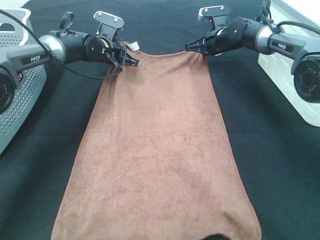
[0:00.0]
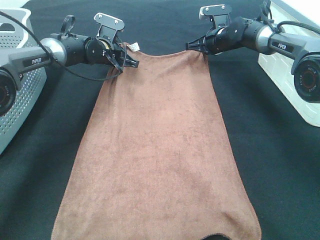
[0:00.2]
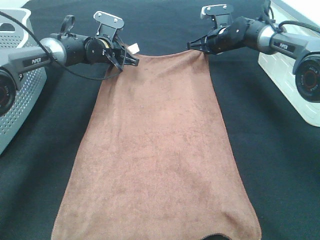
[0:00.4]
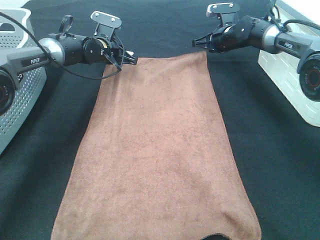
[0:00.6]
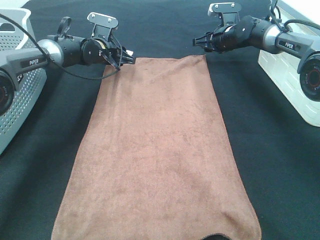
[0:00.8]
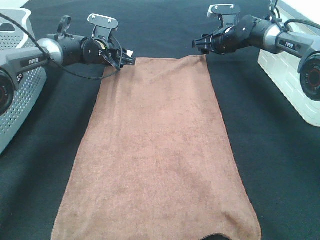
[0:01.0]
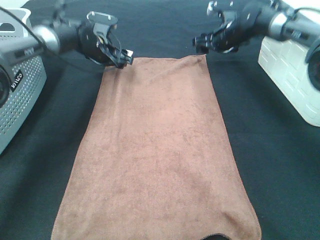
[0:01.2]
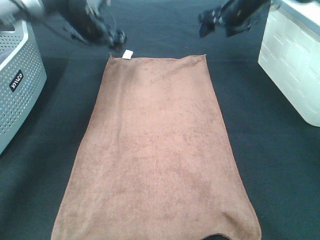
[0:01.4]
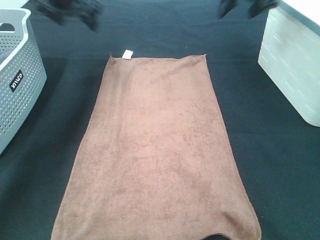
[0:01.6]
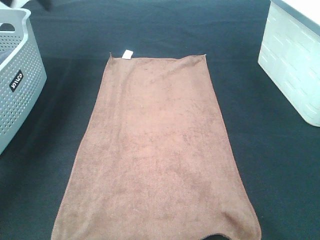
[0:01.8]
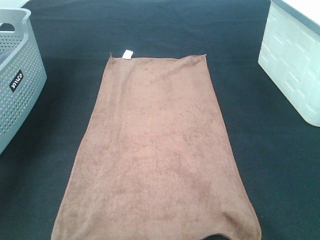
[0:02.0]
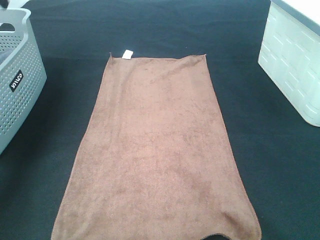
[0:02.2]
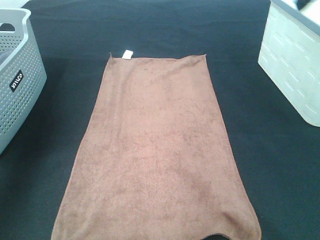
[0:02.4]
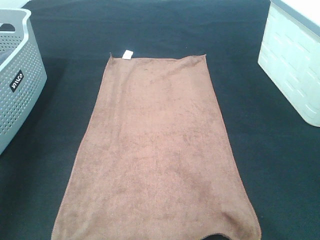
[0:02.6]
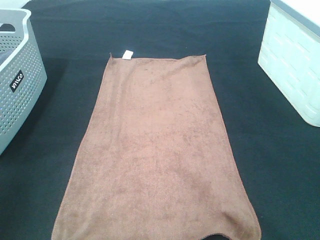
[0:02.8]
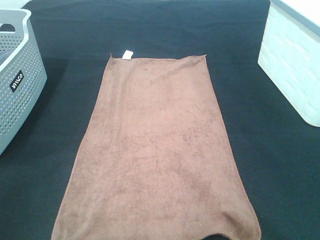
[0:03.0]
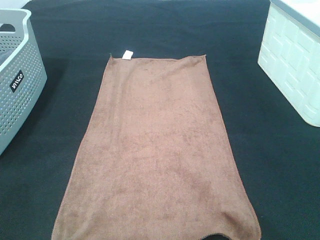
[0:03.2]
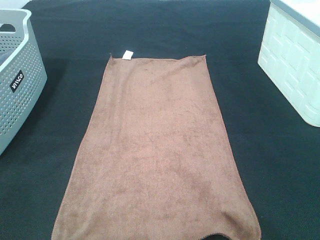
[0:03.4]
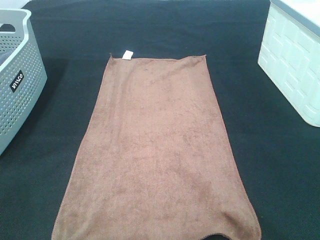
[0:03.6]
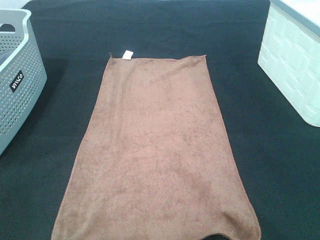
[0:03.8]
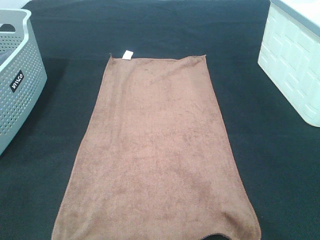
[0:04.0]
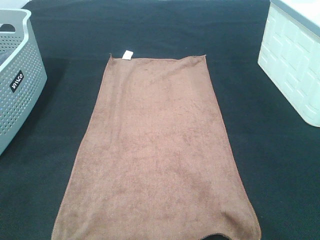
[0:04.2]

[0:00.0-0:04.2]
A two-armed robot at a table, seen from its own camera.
Task of the whole recording: Remove the towel and place it.
0:00.0 to 0:01.4: The grippers both shift upward by about 10 cm. The left gripper opens its fingers; the right gripper opens up.
0:01.4 to 0:02.8: Both grippers move backward, some 40 cm.

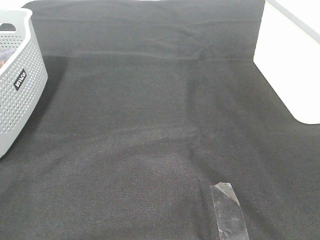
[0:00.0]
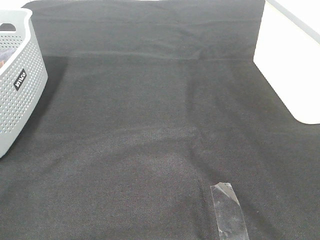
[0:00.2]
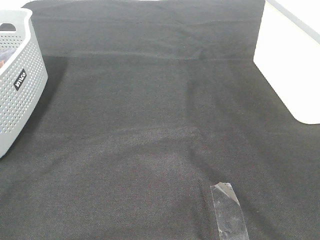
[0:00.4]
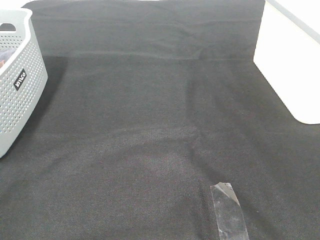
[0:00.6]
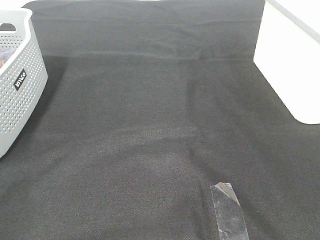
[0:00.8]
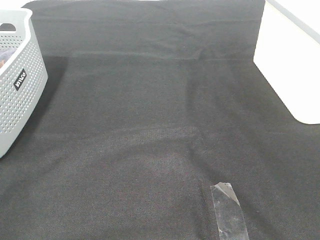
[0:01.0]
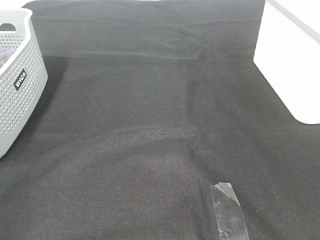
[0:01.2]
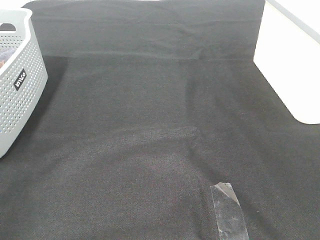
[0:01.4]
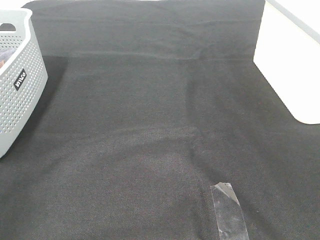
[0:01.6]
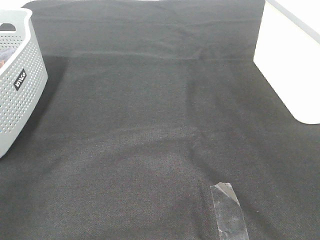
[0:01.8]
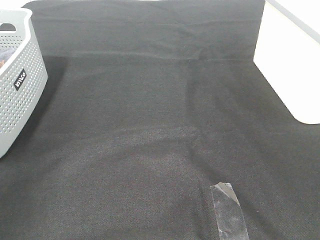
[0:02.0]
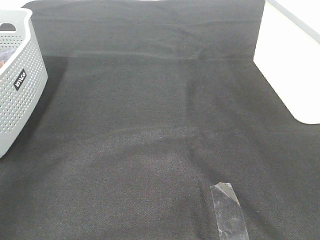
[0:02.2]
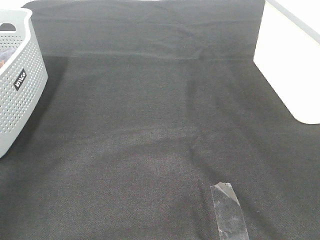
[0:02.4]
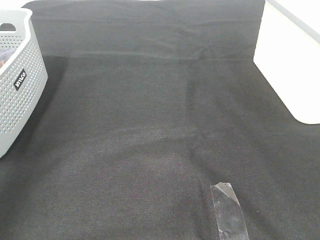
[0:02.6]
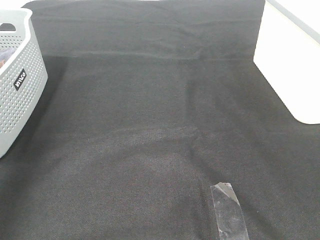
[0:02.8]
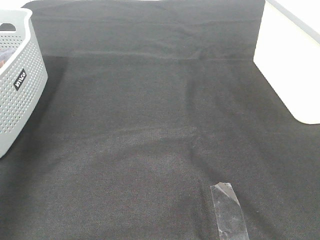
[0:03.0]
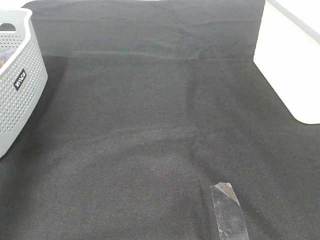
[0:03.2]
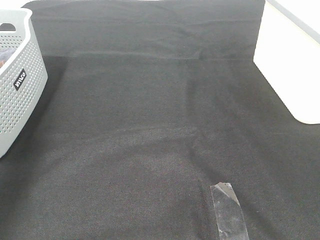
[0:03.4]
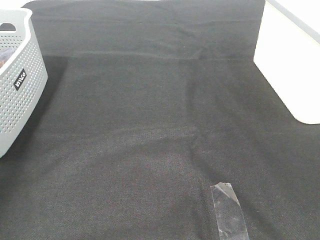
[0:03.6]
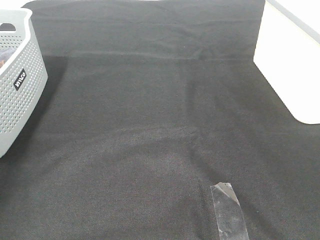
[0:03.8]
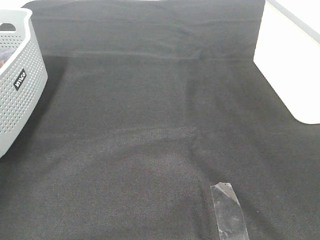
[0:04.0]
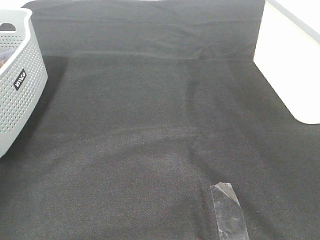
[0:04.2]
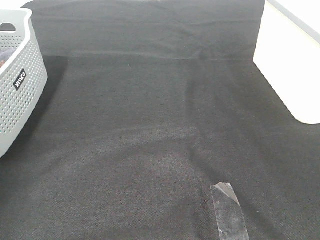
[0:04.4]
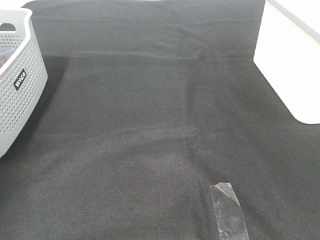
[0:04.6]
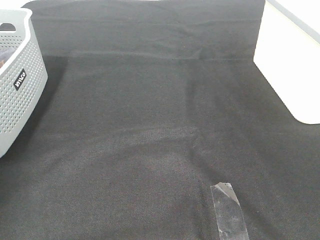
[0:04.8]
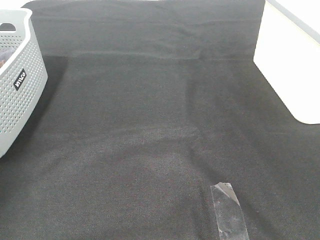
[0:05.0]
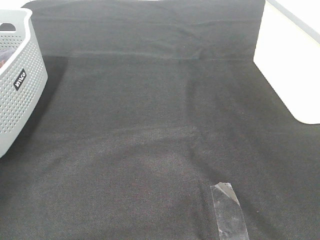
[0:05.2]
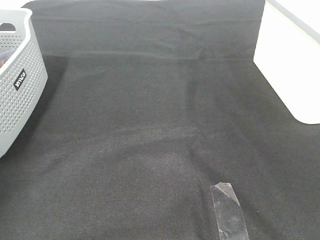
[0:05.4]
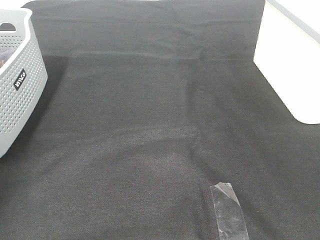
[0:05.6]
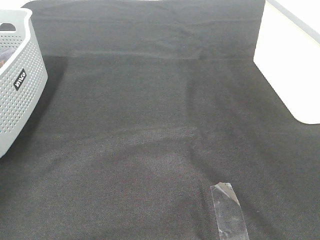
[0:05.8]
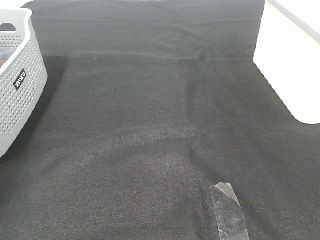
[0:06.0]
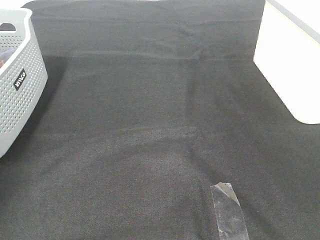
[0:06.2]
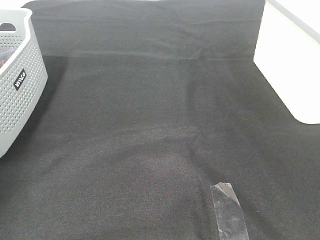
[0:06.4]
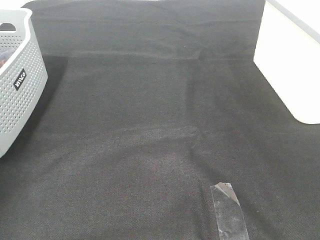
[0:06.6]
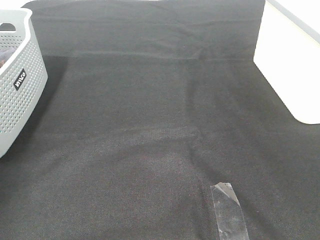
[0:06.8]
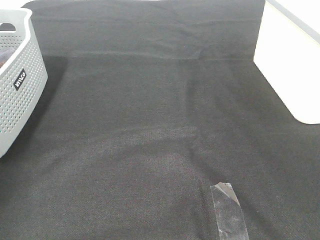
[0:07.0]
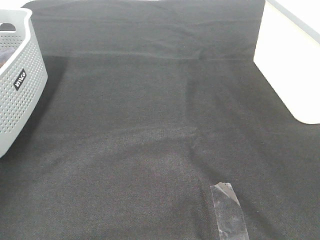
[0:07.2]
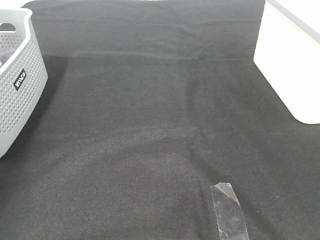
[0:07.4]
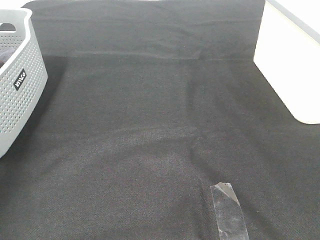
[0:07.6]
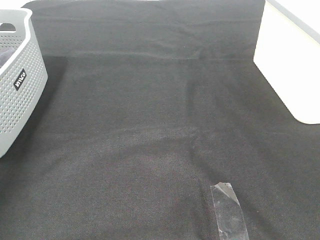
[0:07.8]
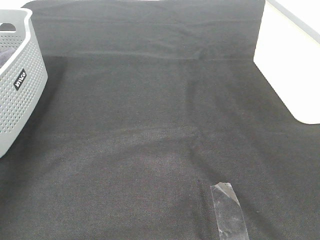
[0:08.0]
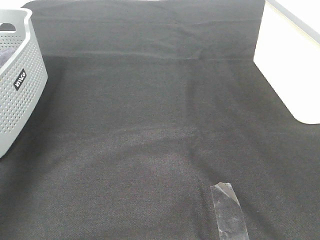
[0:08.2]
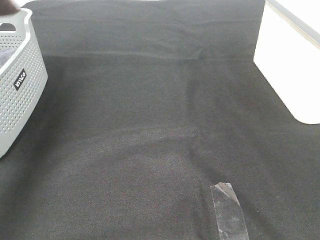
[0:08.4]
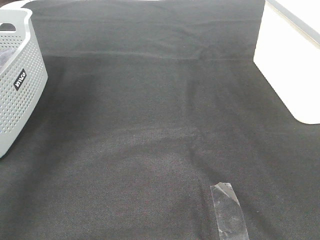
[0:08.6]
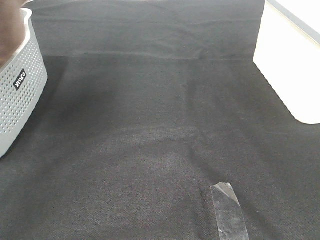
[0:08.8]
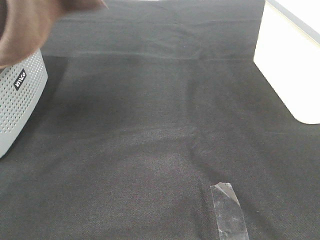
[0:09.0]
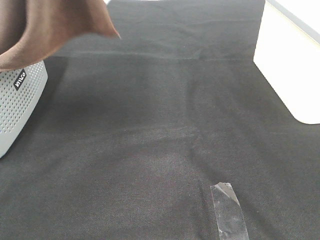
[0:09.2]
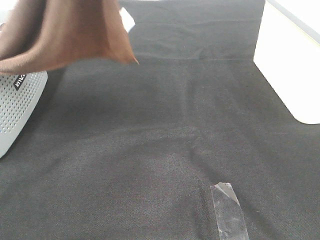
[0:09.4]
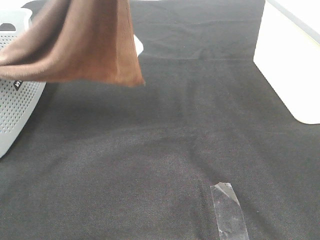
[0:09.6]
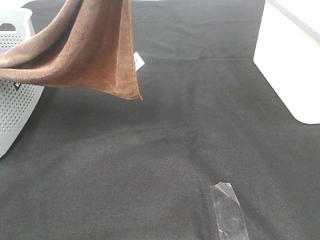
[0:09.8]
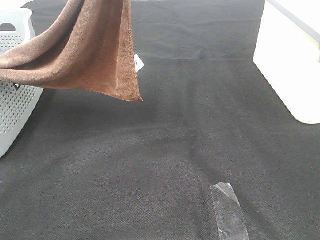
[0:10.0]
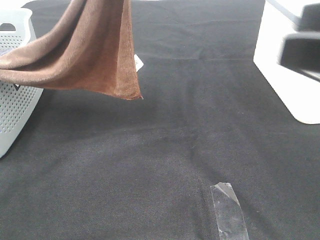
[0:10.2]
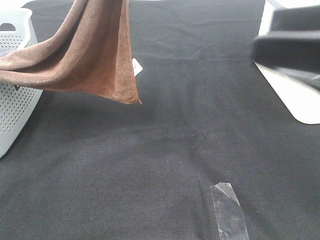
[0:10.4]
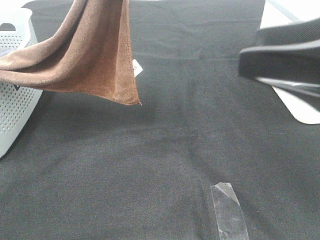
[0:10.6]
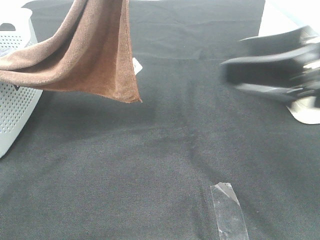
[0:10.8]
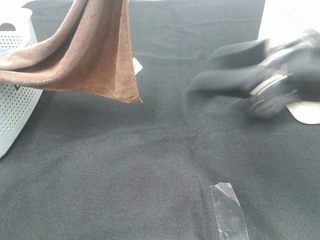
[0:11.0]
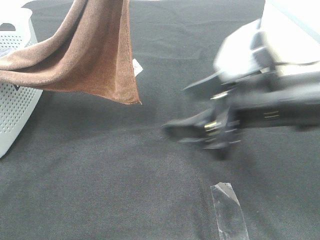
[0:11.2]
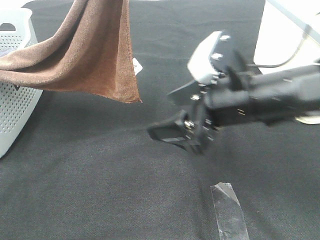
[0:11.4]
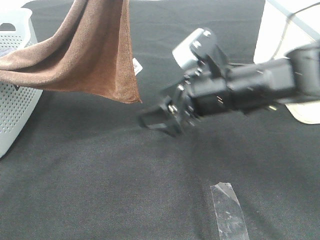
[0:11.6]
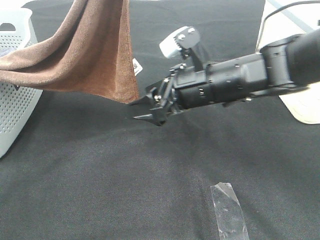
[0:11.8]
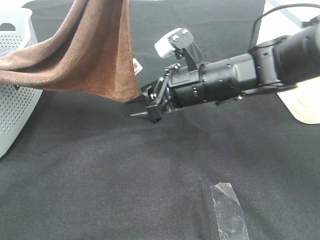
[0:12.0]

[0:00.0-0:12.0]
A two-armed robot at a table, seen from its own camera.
Task of the whole recording: Remove the towel and place it.
0:01.6 to 0:03.0: The left gripper travels forward by about 20 cm.
0:03.0 to 0:04.4: The left gripper shifts roughly 20 cm forward, downward and to the left.
0:07.6 to 0:09.0: The left gripper goes about 20 cm to the right and upward.
0:09.0 to 0:10.4: The right gripper shifts roughly 15 cm forward and to the left. Meanwhile the left gripper travels to the right and downward by some 10 cm.
0:10.4 to 0:12.0: The right gripper moves forward, downward and to the left, about 25 cm.

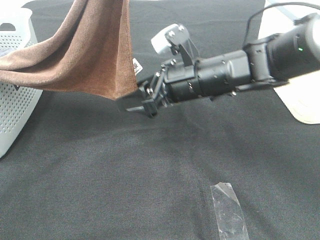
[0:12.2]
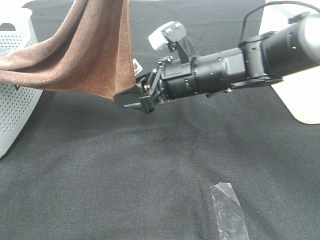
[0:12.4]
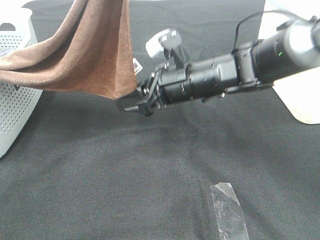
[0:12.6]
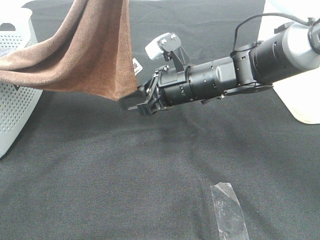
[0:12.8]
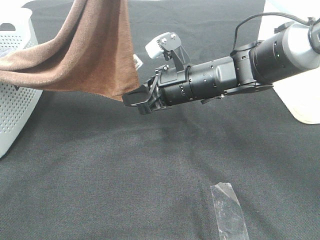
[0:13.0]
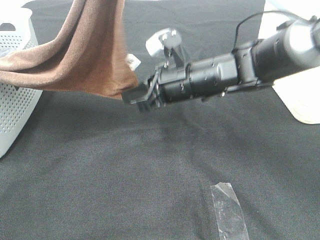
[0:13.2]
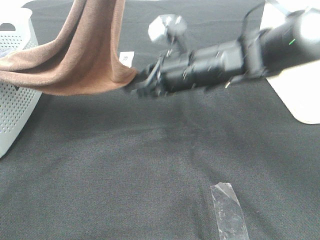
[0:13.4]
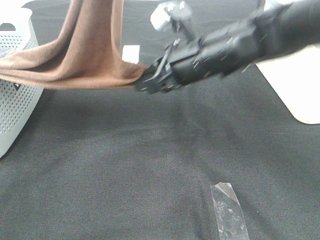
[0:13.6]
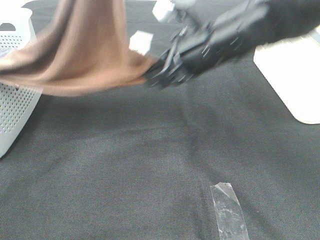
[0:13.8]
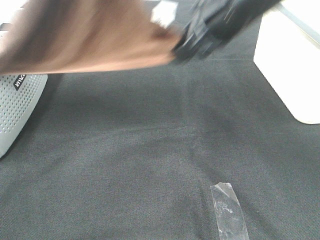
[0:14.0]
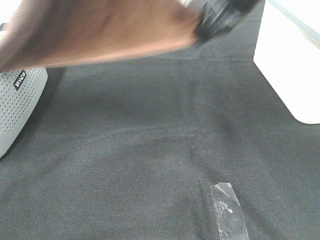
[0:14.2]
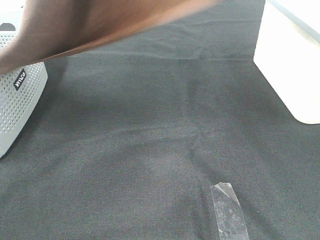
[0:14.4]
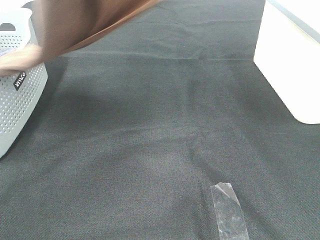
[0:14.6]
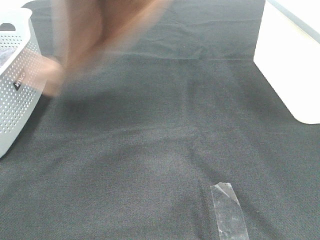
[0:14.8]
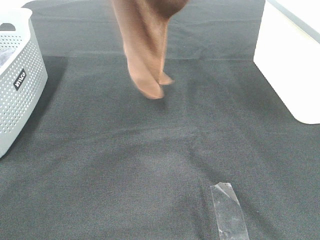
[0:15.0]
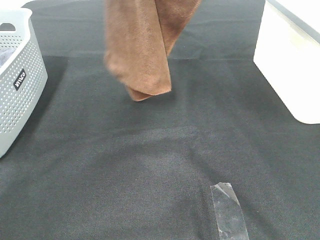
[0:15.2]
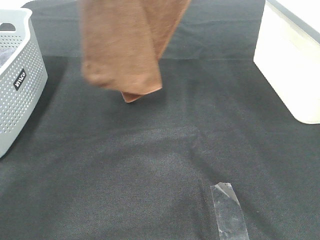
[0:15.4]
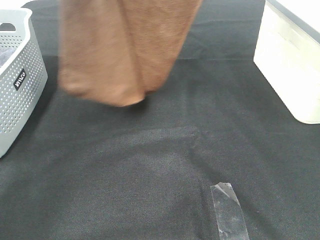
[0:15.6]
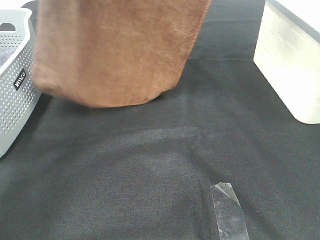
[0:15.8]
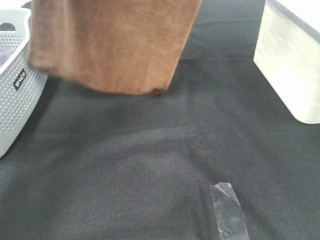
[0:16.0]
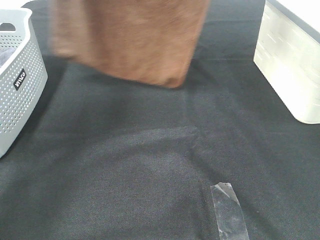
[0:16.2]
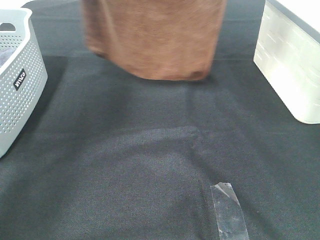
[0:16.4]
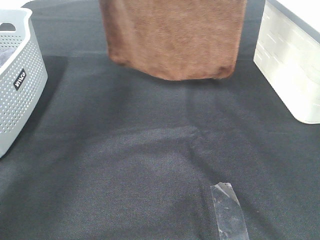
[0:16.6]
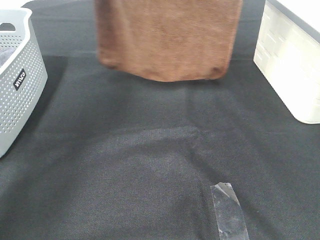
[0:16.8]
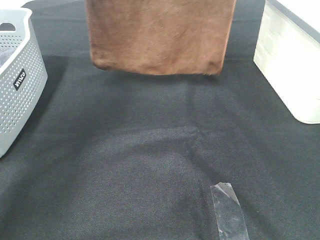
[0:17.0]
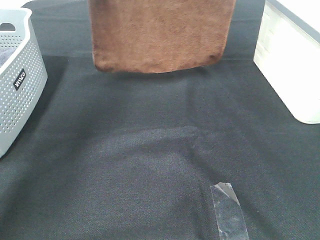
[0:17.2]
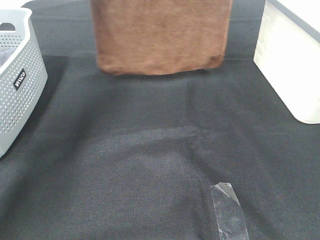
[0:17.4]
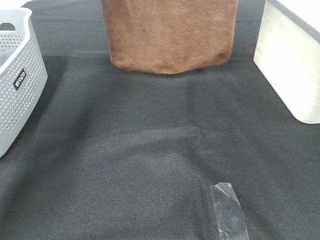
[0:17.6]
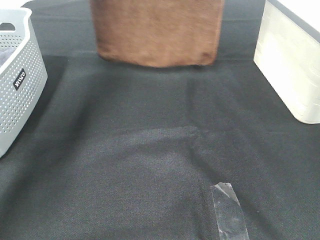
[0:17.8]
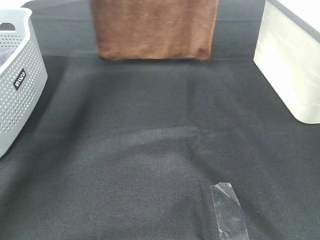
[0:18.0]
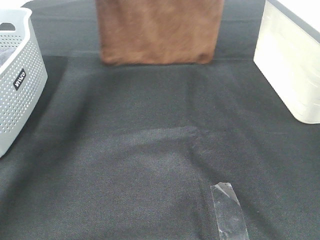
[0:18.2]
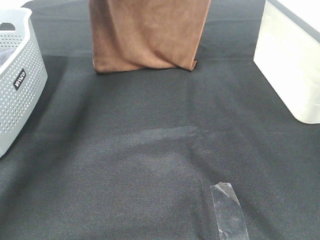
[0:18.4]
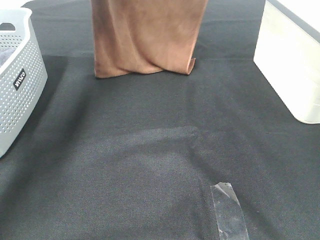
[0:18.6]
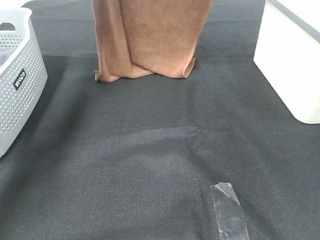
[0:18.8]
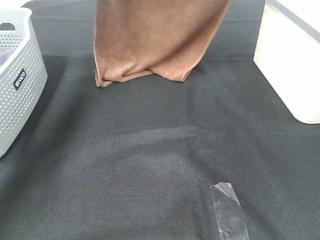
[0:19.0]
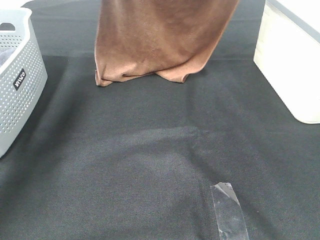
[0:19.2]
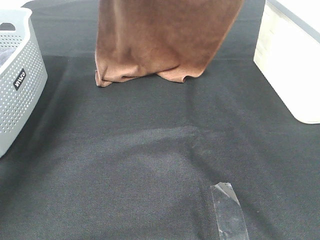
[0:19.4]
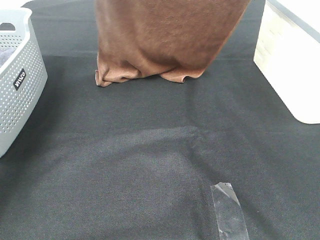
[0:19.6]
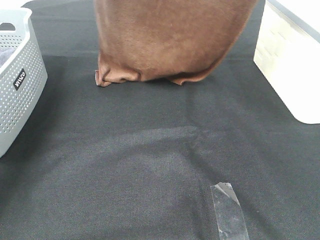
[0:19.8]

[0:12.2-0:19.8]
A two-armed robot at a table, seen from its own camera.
Task of the whole recording: Remove the towel and place it.
Step, 0:14.0 to 0:19.4: Left hand: spread the brown towel flat on the table.
Step, 0:14.0 to 0:19.4: Right hand: spread the brown towel flat on the table.
0:12.2 to 0:13.8: The right gripper goes about 10 cm upward, and closes its fingers.
0:13.8 to 0:15.2: The left gripper goes some 5 cm forward, while the right gripper moves upward, about 25 cm.
0:15.2 to 0:16.8: The left gripper heads forward and downward, covering some 10 cm. Meanwhile the right gripper travels forward by about 10 cm.
0:16.8 to 0:18.2: The left gripper shifts roughly 5 cm forward; the right gripper is displaced forward and downward by about 10 cm.
0:18.2 to 0:19.8: The right gripper is displaced backward by some 15 cm, while the left gripper changes place by some 5 cm.
